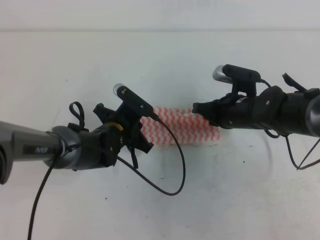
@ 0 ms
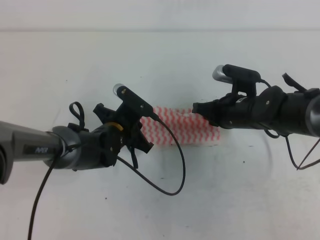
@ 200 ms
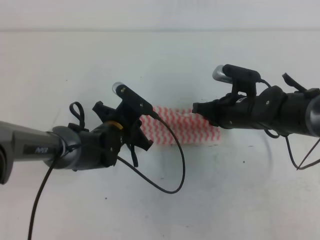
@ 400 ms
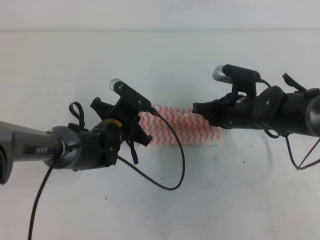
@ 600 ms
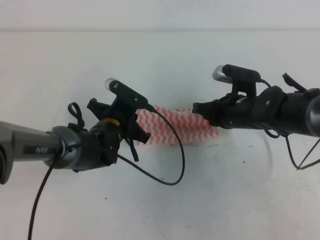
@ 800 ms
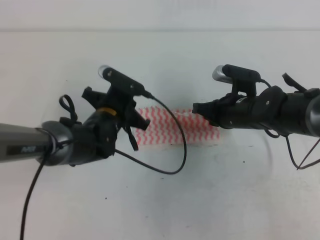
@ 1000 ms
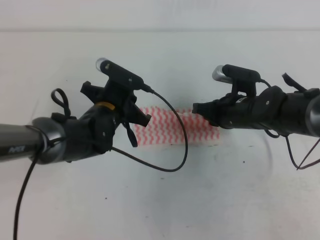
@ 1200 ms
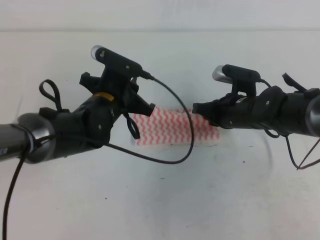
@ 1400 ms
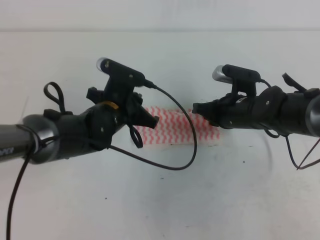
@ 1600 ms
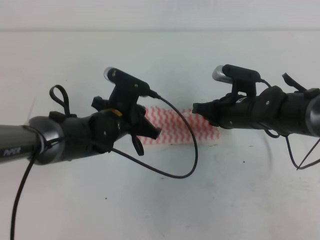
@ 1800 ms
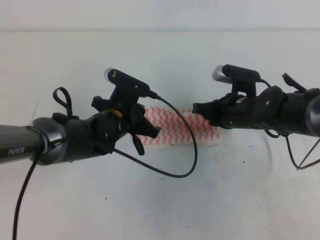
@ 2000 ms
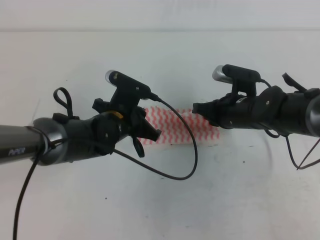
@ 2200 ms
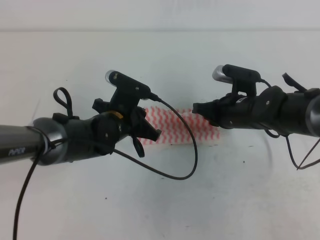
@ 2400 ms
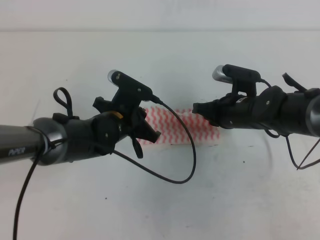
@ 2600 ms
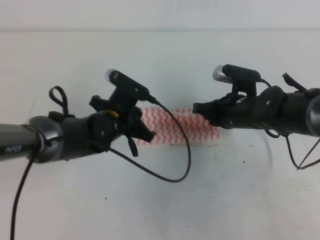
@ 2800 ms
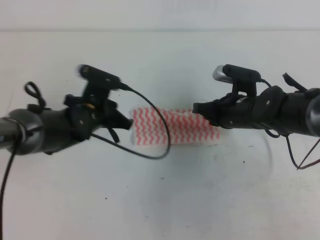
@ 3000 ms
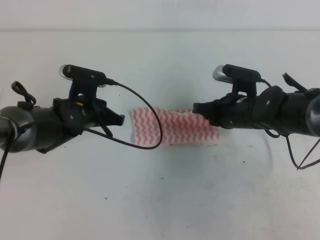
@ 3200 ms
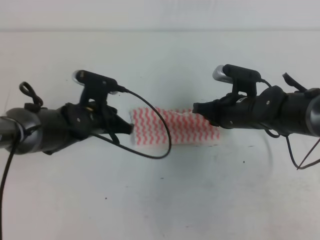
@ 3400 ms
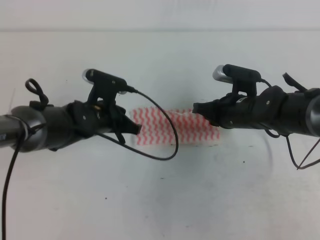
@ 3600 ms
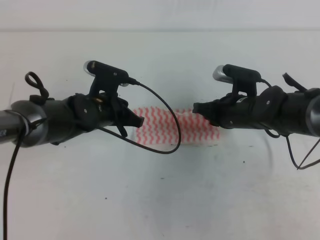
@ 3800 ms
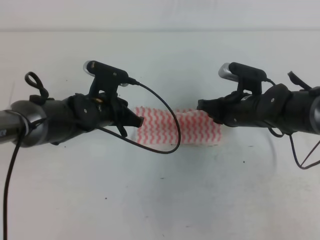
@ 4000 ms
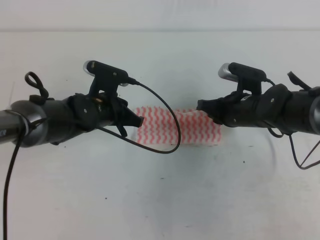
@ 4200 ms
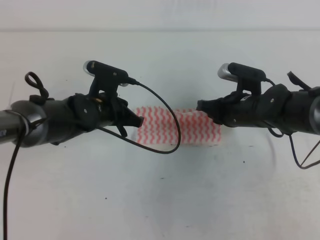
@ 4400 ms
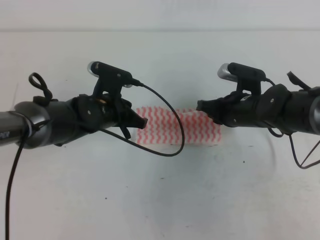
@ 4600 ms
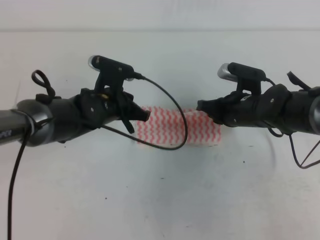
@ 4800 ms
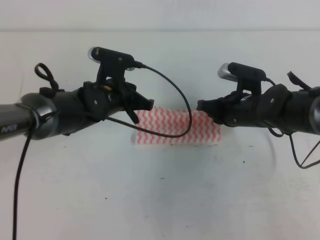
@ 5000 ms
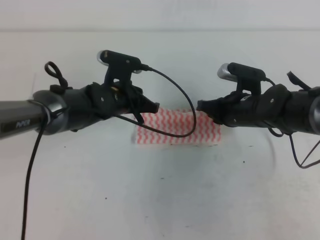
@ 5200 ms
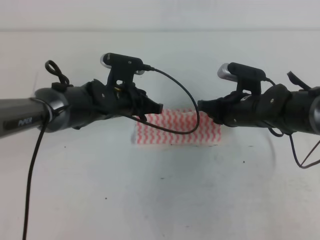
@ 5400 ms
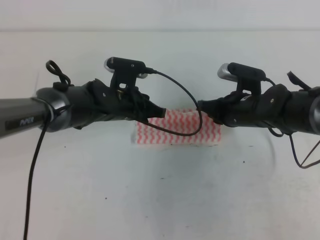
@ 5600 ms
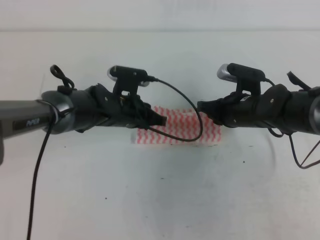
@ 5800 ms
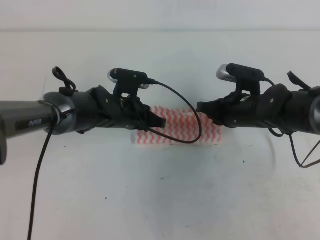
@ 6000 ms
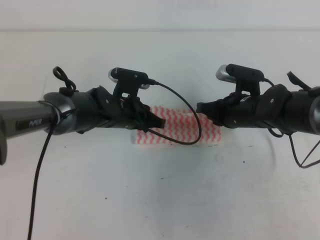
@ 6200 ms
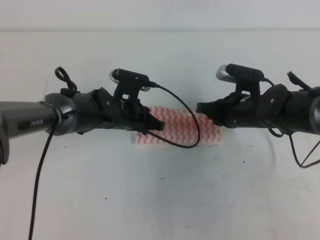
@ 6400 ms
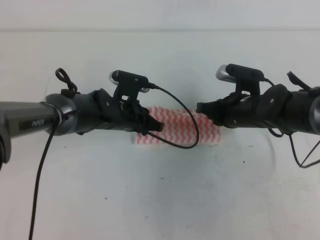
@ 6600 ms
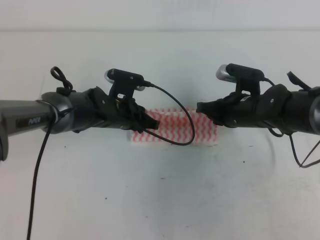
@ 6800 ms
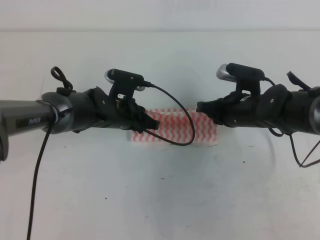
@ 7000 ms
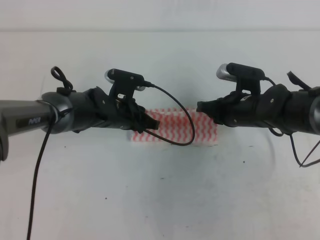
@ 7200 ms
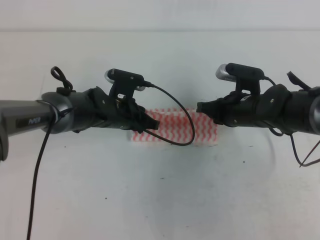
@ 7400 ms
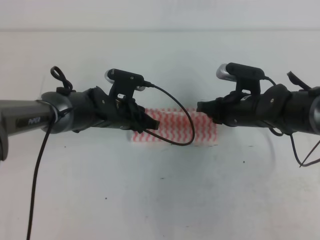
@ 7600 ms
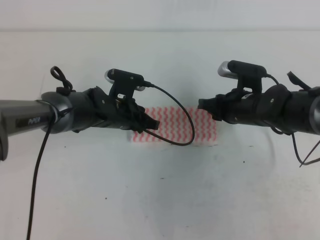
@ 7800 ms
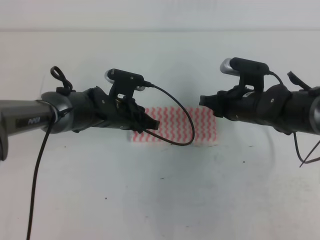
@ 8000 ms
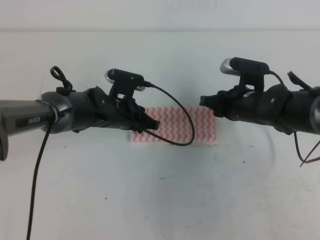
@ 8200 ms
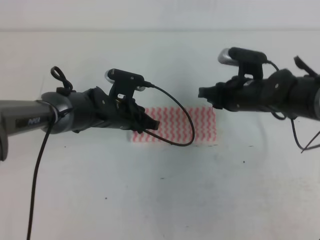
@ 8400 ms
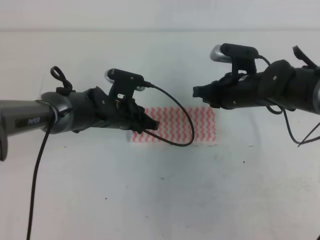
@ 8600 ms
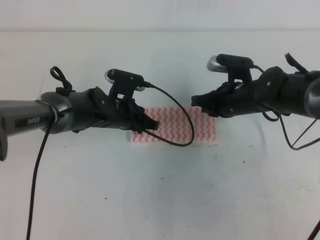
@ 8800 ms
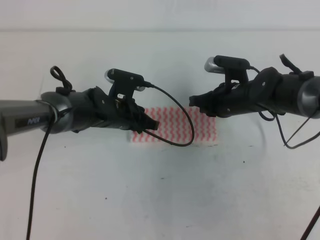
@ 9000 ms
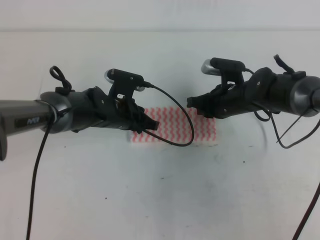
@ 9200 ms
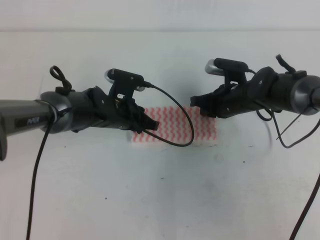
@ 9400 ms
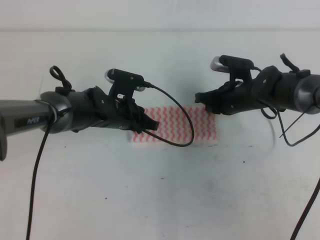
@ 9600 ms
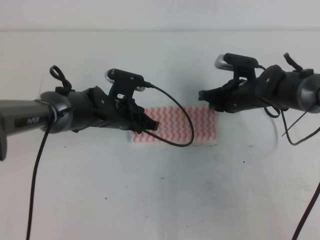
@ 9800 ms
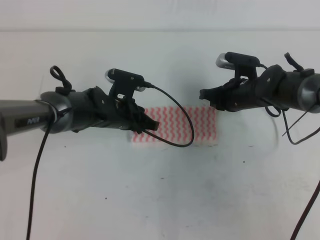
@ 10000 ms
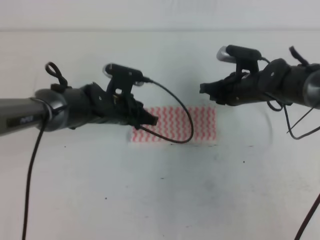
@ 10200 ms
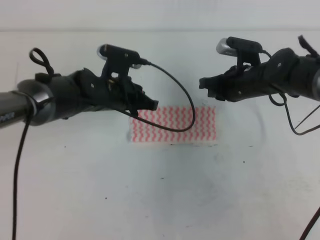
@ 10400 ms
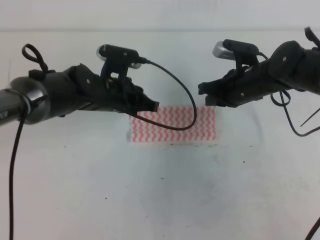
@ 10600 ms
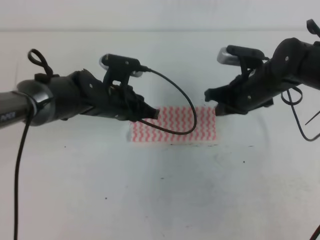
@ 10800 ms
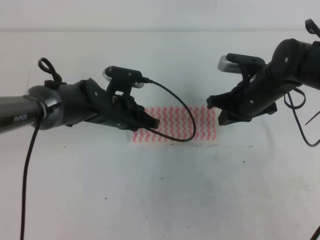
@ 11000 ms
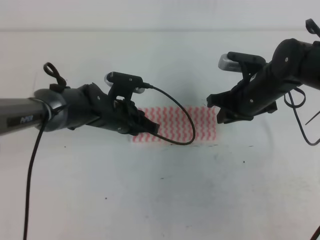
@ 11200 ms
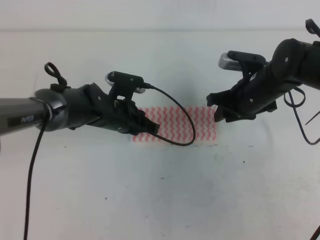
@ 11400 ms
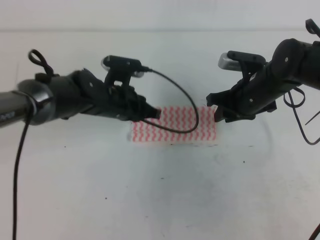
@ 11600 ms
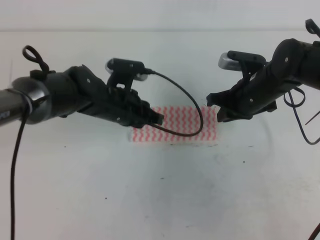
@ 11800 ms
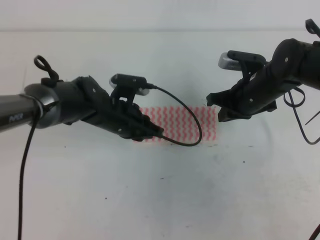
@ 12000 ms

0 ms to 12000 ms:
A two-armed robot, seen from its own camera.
0 ms to 1600 ms: The left gripper goes some 5 cm upward.
1600 ms to 3000 ms: There are only small adjustments of the grippers.
3000 ms to 4400 ms: The grippers move only a little.
4400 ms to 9000 ms: The grippers move only a little.
10400 ms to 12000 ms: The right gripper opens, then closes once more.

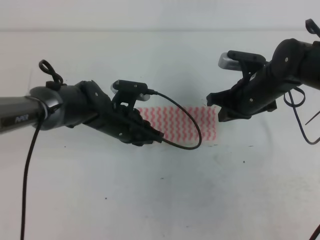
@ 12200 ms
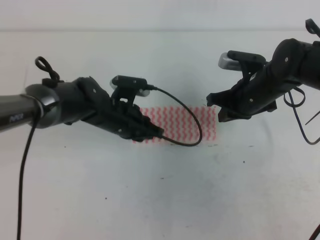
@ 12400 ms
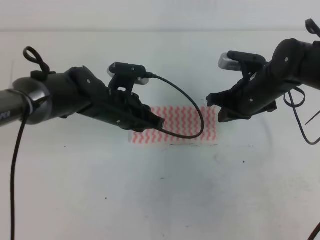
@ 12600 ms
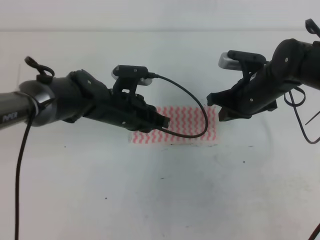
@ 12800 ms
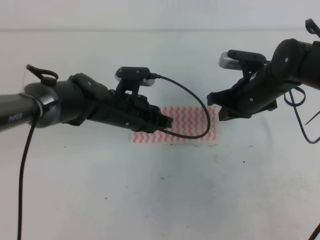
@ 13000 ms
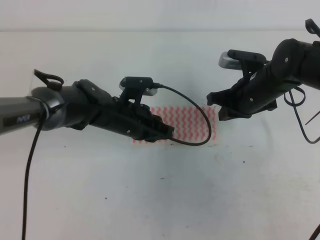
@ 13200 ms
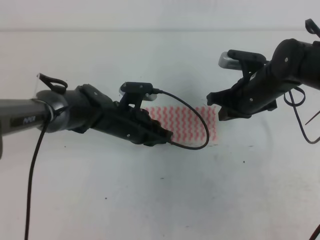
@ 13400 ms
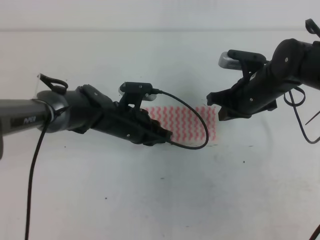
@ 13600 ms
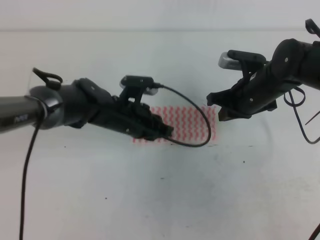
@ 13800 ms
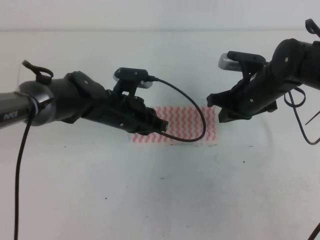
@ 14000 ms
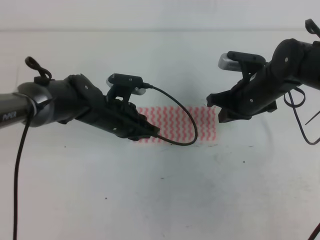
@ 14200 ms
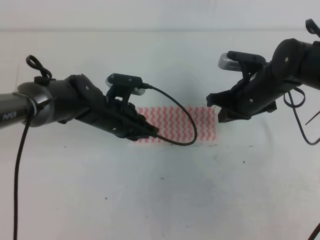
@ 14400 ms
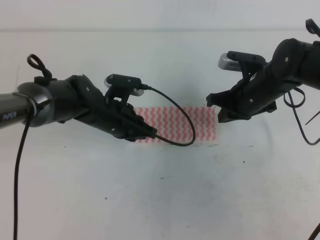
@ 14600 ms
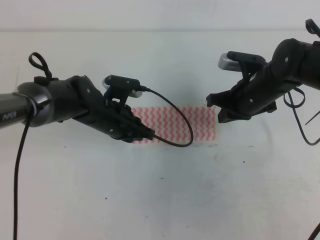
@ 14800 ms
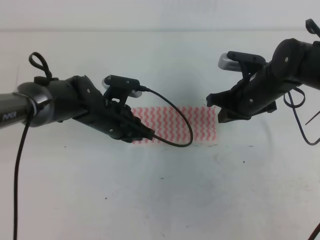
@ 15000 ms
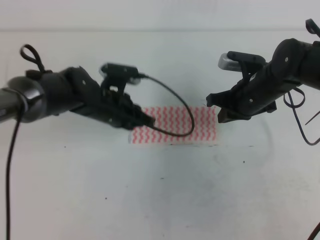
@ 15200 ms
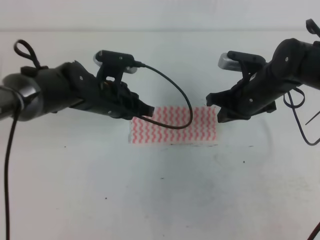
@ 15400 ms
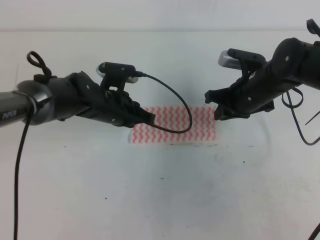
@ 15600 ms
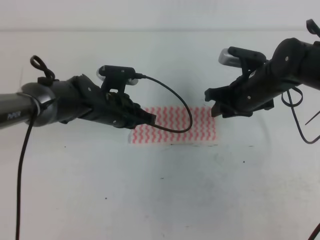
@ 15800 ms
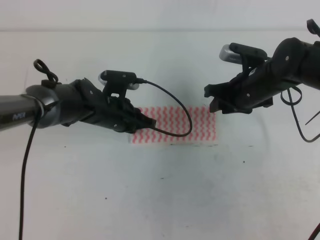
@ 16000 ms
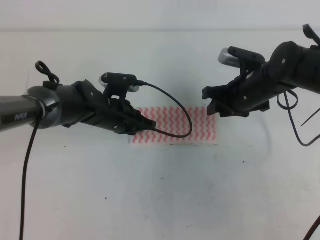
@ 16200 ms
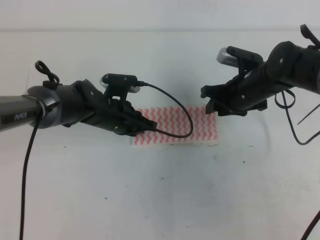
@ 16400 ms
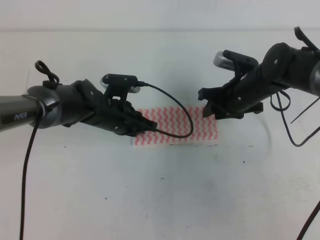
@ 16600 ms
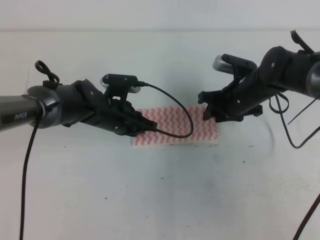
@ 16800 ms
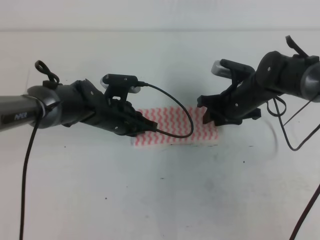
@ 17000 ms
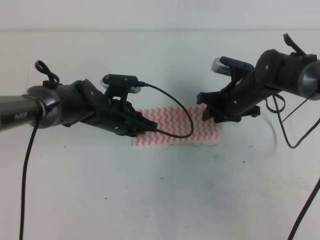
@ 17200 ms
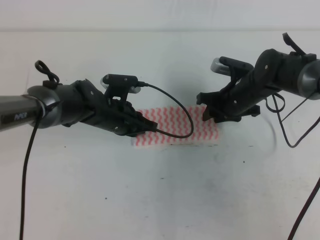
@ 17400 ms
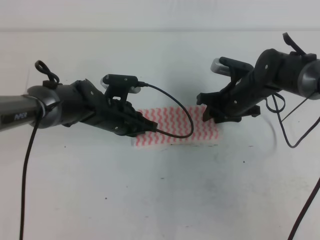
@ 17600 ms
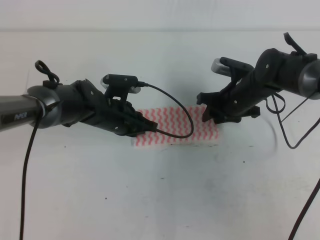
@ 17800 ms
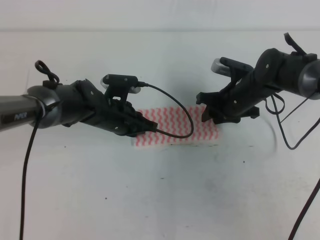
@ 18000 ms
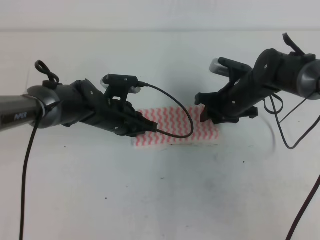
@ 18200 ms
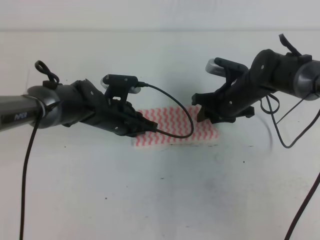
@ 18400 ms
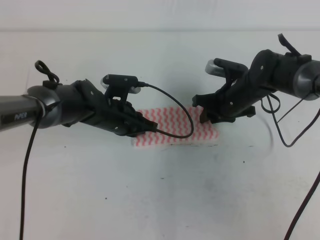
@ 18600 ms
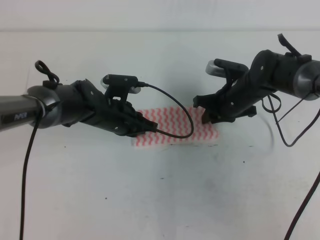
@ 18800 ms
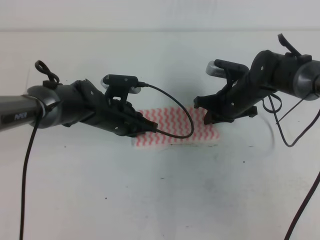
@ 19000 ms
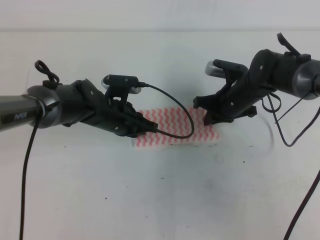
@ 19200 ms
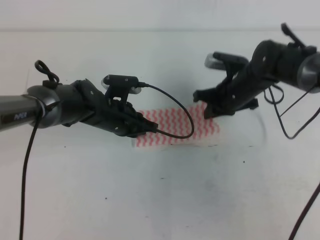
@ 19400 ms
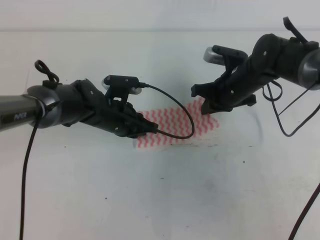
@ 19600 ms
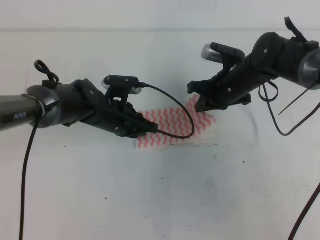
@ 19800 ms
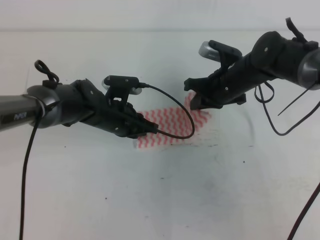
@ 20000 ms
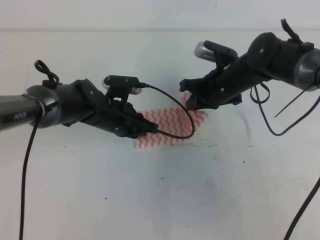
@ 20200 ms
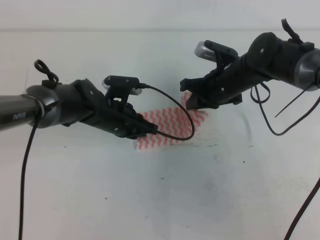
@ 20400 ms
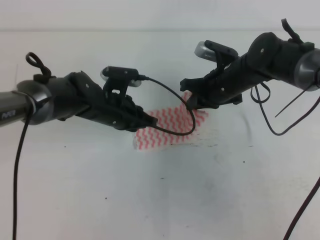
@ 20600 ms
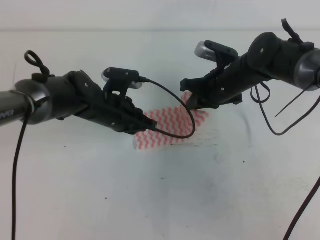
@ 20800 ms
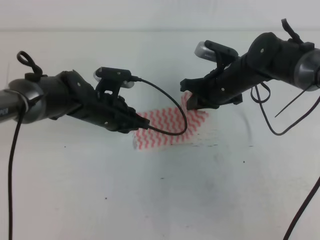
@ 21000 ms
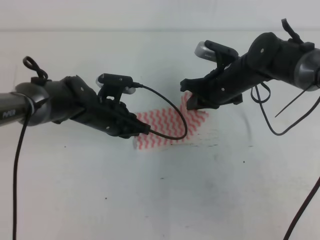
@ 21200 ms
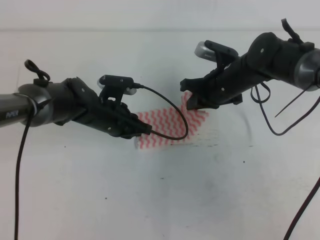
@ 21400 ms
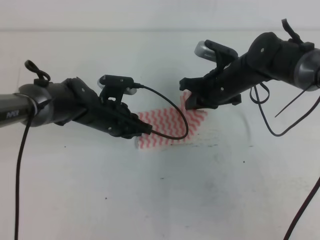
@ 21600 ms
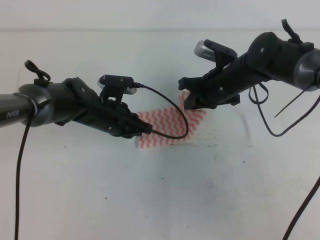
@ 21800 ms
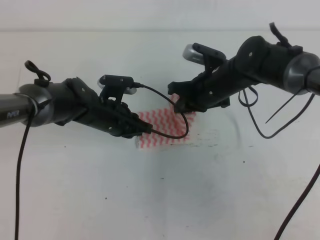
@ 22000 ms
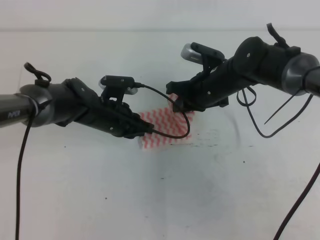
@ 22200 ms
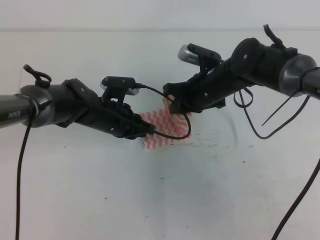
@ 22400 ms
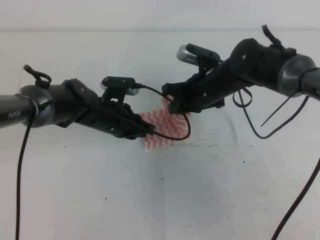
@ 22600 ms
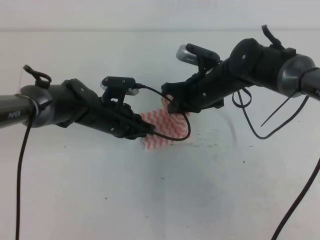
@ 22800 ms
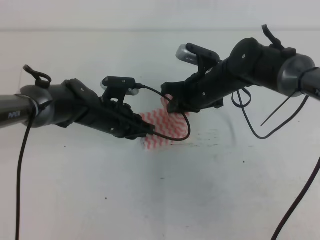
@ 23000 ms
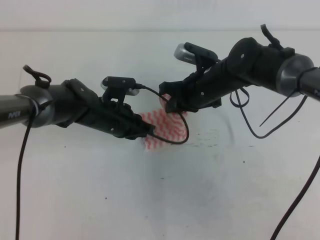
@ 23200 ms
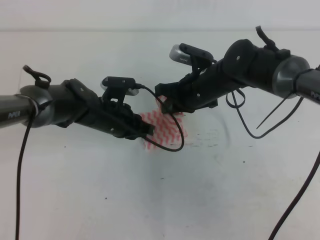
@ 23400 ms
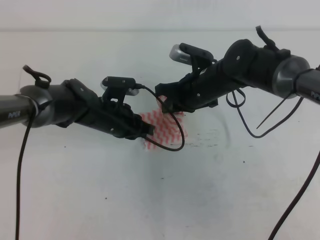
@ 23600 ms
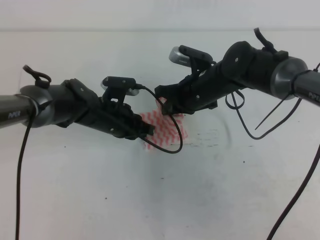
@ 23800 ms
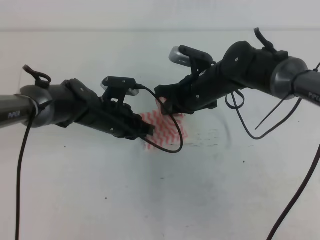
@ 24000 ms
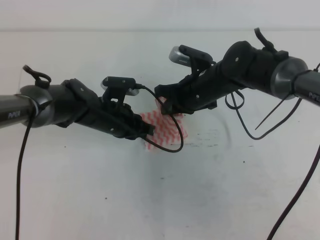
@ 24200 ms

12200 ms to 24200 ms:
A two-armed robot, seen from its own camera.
12200 ms to 15200 ms: The grippers move only a little.
15200 ms to 16600 ms: The right gripper opens.
16600 ms to 18200 ms: The grippers move only a little.
18200 ms to 19800 ms: The right gripper closes up.
19800 ms to 22600 ms: There are only small adjustments of the grippers.
22600 ms to 24200 ms: The grippers stay close to where they were, moving slightly.
